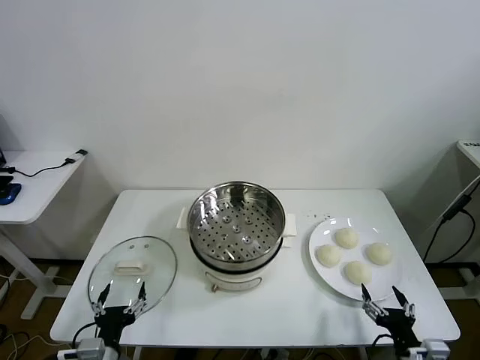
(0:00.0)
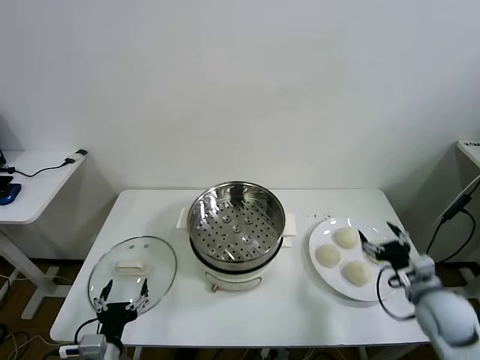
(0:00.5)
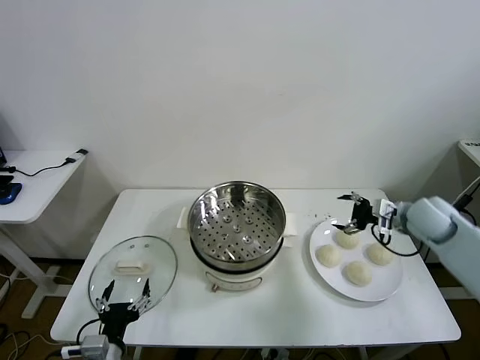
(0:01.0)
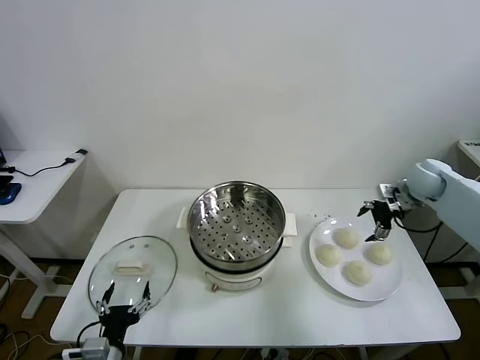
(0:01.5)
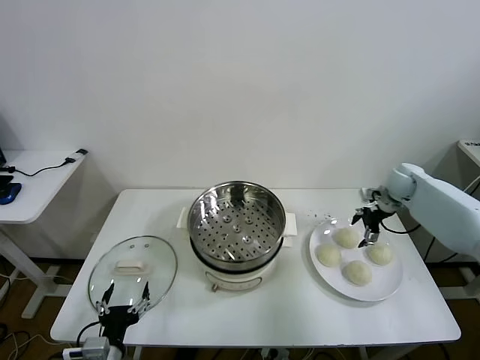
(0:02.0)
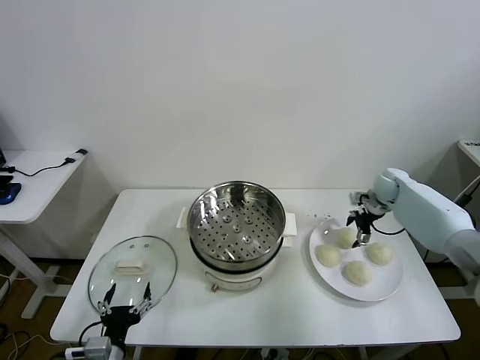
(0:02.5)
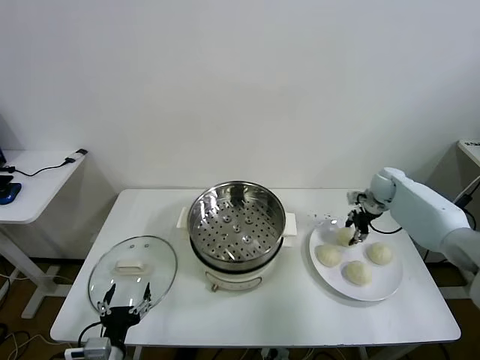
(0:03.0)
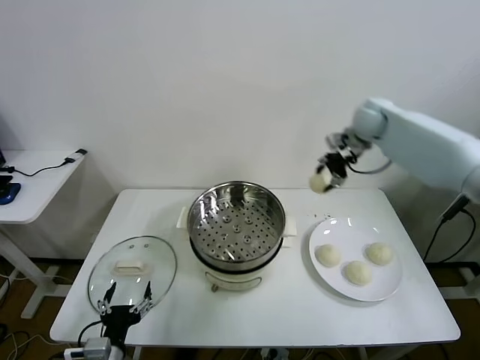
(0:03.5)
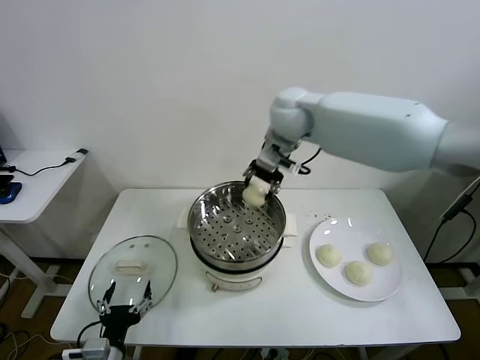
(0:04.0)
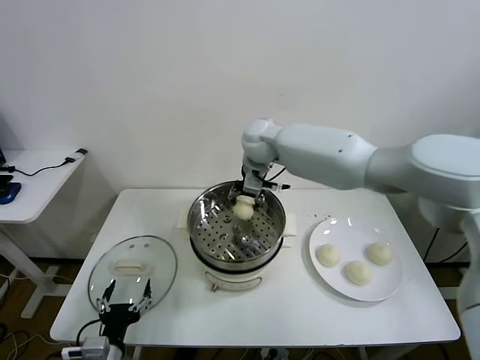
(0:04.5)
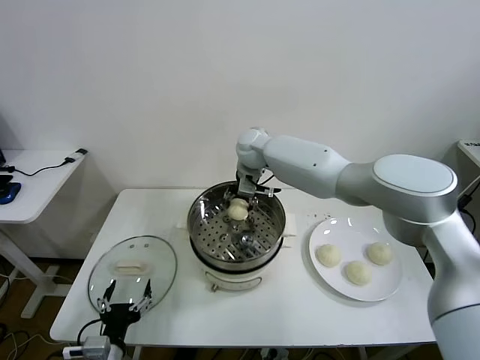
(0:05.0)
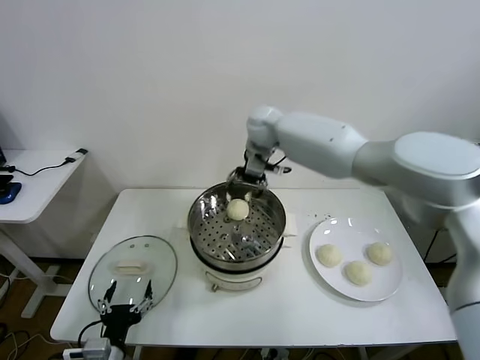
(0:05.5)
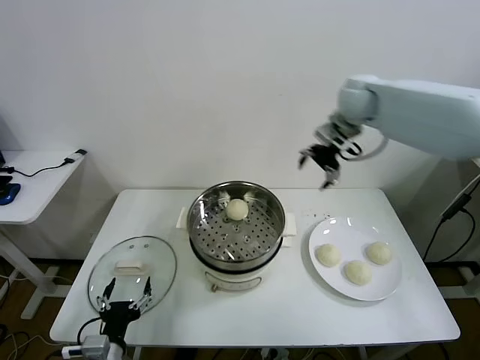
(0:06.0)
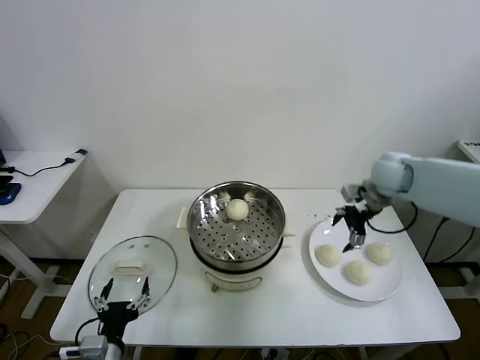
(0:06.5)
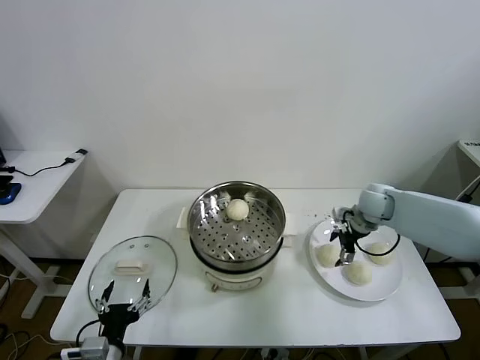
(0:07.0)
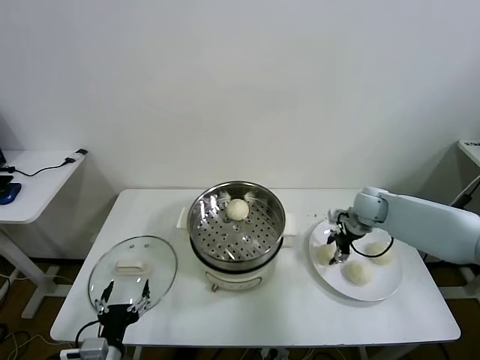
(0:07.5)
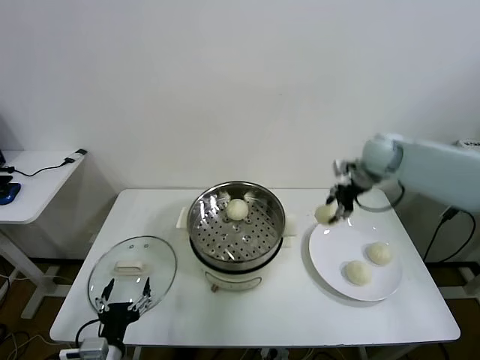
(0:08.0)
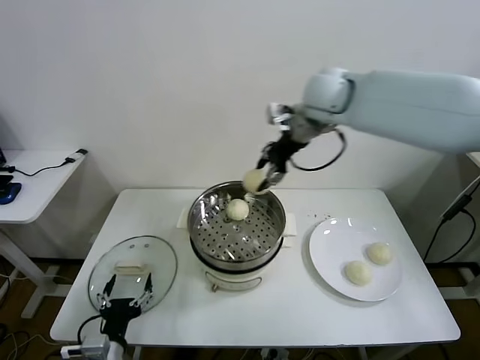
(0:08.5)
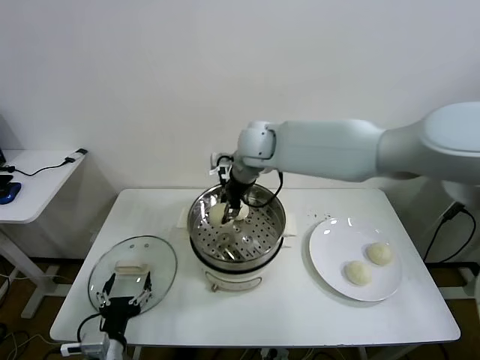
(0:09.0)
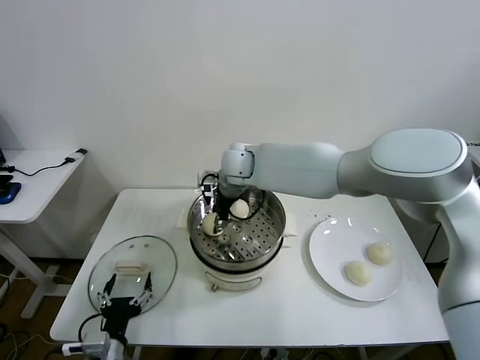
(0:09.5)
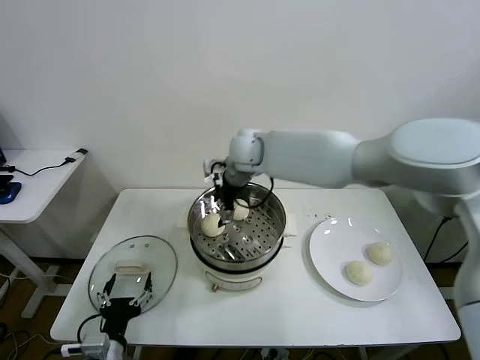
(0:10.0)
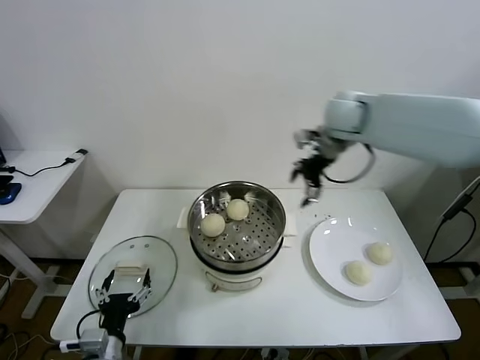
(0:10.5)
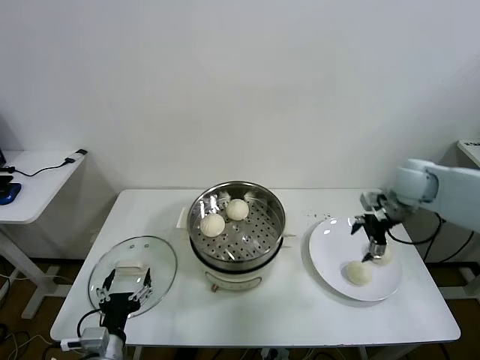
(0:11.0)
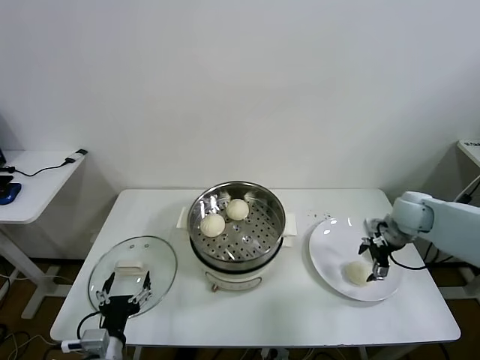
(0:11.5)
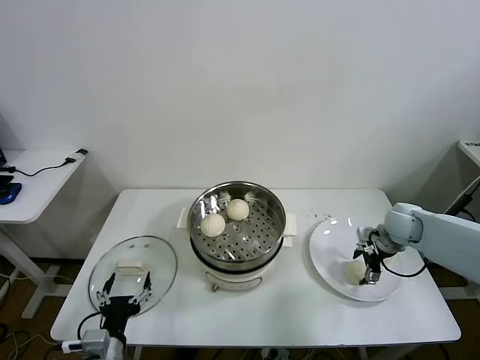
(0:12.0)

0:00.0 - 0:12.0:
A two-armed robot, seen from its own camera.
Task of the whole recording: take steamed baozi put them in steamer then cover it.
Step, 0:00.0 - 0:02.5: Grasp the baozi in the plate with right gripper.
Step, 0:03.0 - 0:05.0: Place the baozi on the steamer with right gripper.
Step, 0:05.5 - 0:07.0: Grasp the baozi in the plate with right gripper.
Step, 0:07.5 - 0:09.5: Place the baozi on the steamer with right gripper.
0:02.0 - 0:04.0: The right gripper goes roughly 40 cm to the left and upward, and closes up.
0:04.0 - 0:06.0: The right gripper is displaced to the right by approximately 20 cm, and opens its fingers.
0:06.0 - 0:08.0: The right gripper travels downward and back again, about 25 cm each way, and closes its fingers.
0:08.0 - 0:10.0: The right gripper is displaced to the left by about 30 cm, and opens.
0:10.0 - 0:12.0: The right gripper moves to the right and downward, some 40 cm, and closes up.

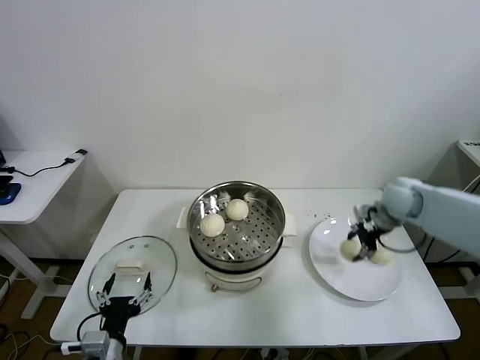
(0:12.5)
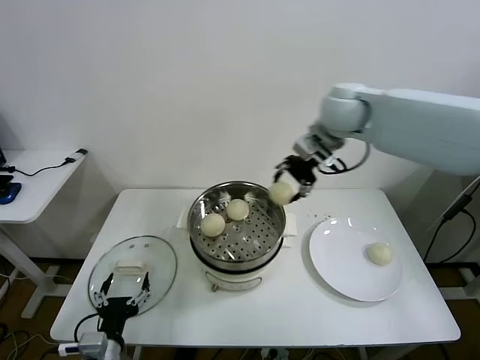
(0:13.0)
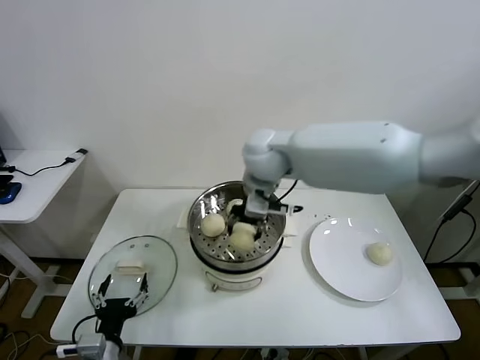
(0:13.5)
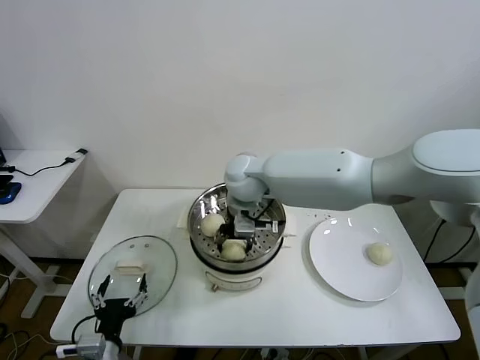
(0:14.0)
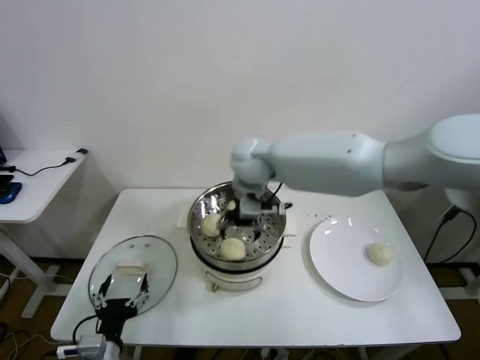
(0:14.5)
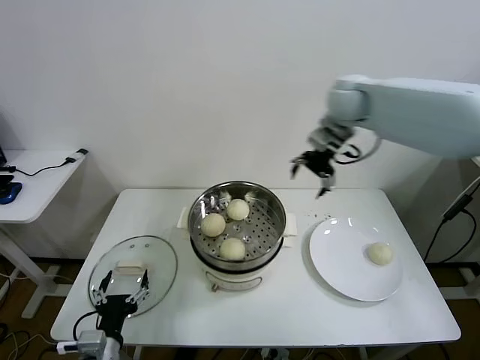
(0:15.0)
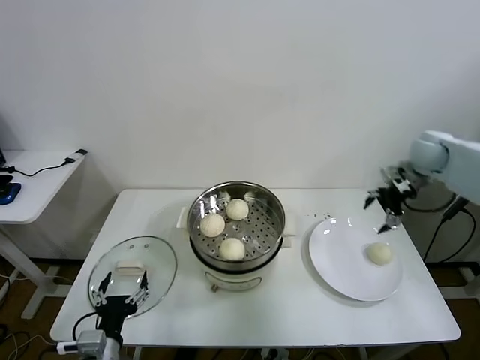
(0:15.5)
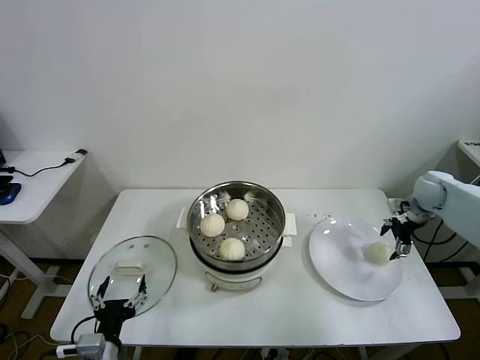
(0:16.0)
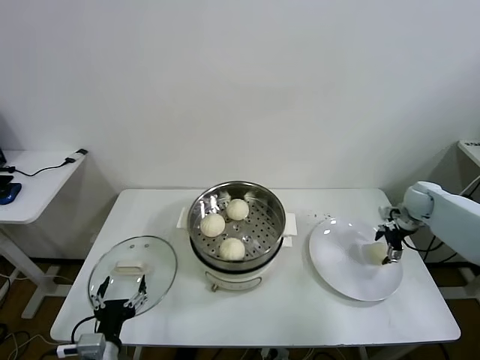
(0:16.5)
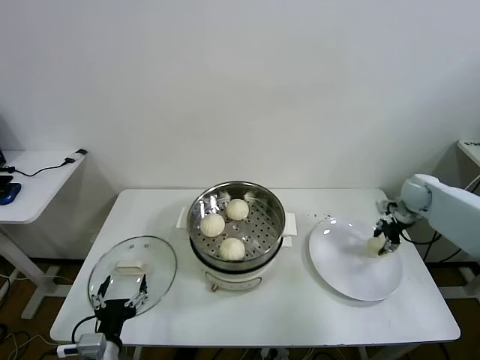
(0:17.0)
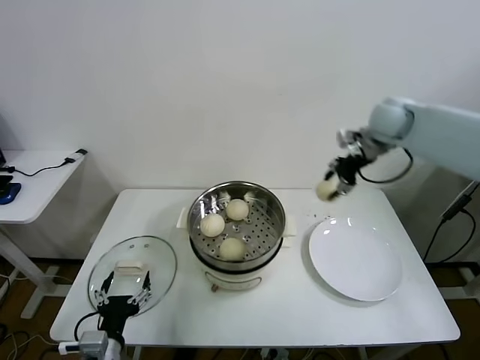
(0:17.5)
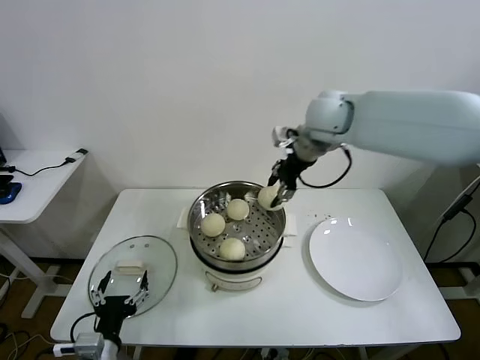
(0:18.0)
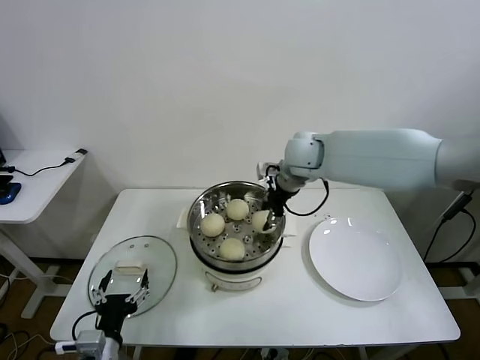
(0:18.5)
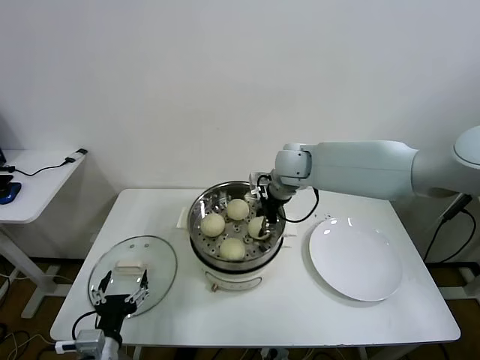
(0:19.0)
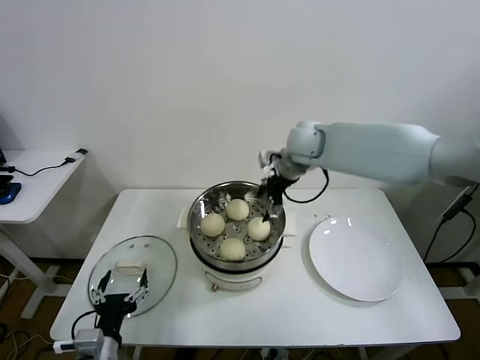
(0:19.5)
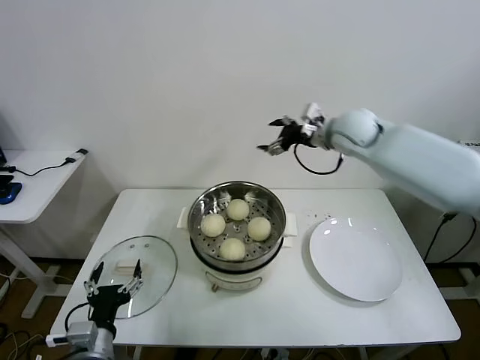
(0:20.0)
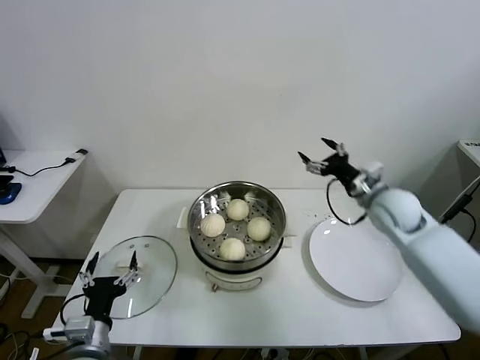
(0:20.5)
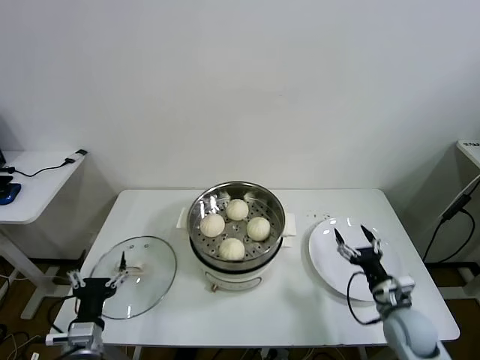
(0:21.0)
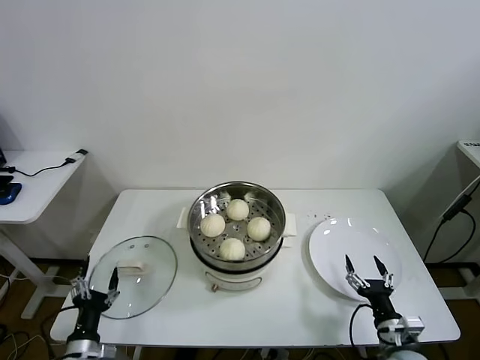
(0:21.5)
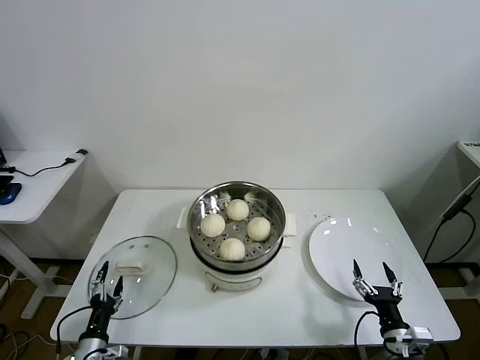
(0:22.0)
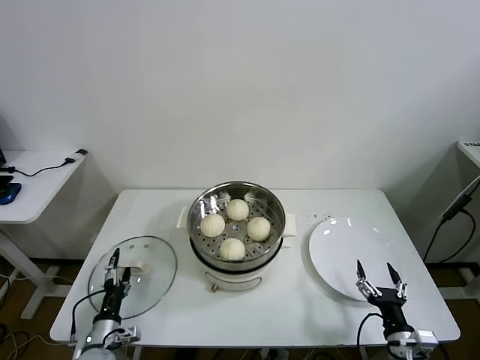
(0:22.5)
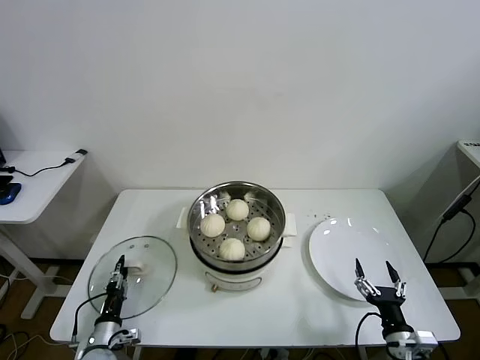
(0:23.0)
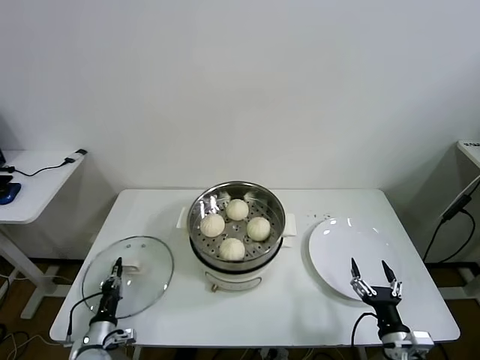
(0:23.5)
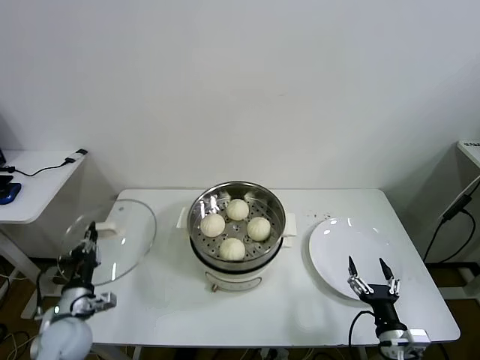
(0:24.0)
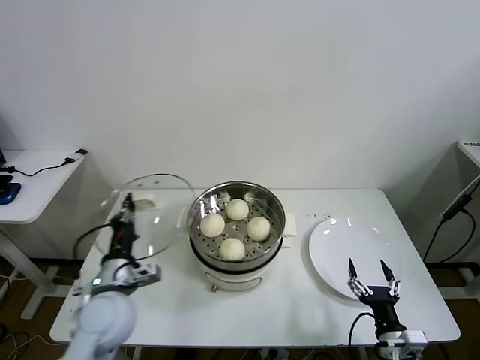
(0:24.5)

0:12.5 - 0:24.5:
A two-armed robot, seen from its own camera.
Task of the whole recording: take steamed baozi put them in steamer then cover it.
Step, 0:12.5 - 0:14.0: Place the baozi on the steamer with right gripper.
Step, 0:14.5 - 0:16.5: Grasp the baozi in the plate with right gripper.
Step, 0:17.0 - 0:19.0: Place the baozi on the steamer with right gripper.
Step, 0:19.5 - 0:23.0: Grasp the pot lid with left gripper.
0:12.5 - 0:14.5: The right gripper heads to the left, covering about 35 cm, and opens.
0:14.5 - 0:16.5: The right gripper travels to the right by some 50 cm.
0:16.5 - 0:18.5: The right gripper goes roughly 40 cm to the left and upward, and closes up.
0:18.5 - 0:20.5: The right gripper goes roughly 25 cm to the right, downward and backward, and opens up.
0:20.5 - 0:22.5: The right gripper heads backward and downward, covering some 35 cm. The left gripper heads downward, covering roughly 15 cm.
0:22.5 - 0:24.5: The left gripper shifts approximately 20 cm upward, and closes up.

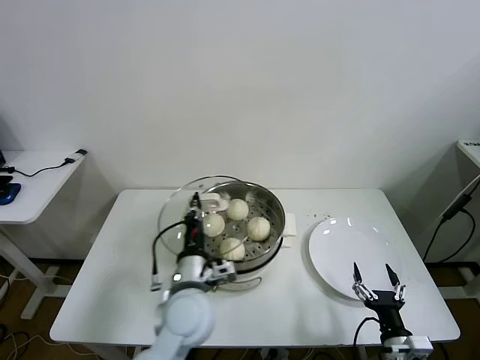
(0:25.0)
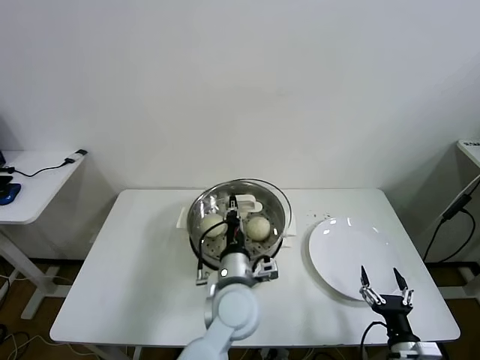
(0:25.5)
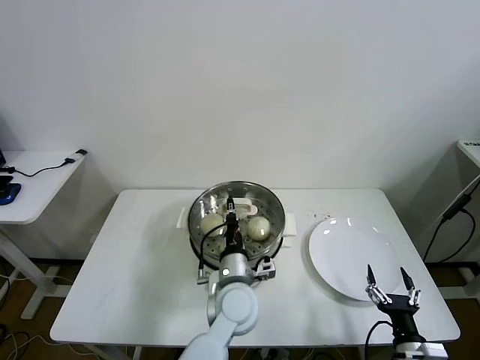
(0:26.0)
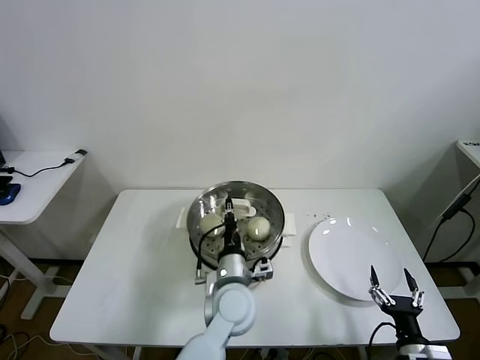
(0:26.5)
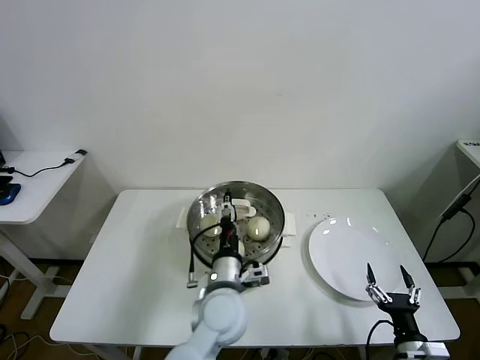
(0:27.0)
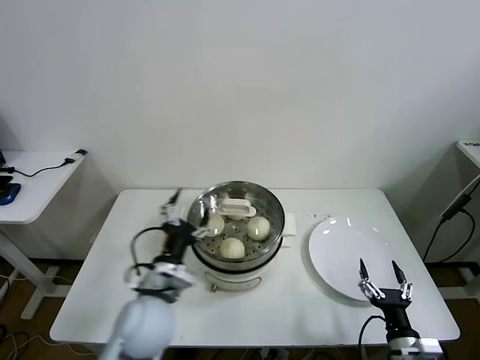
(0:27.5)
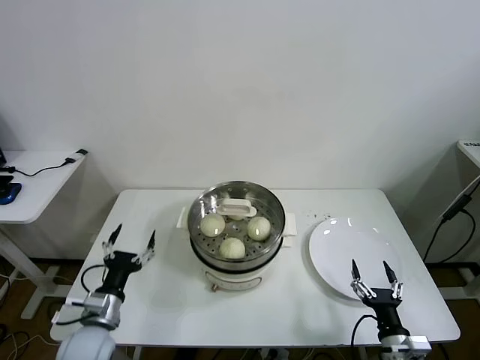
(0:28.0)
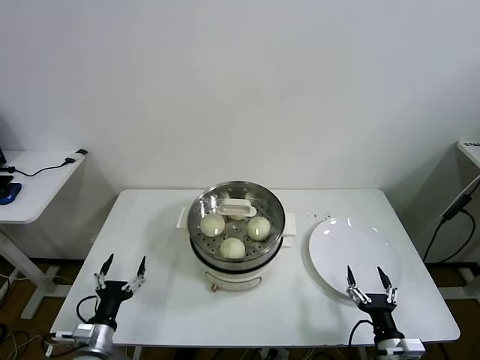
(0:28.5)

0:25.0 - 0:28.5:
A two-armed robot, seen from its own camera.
Task of the whole recording: take steamed baozi put them in steamer then cover it.
0:25.0 - 0:27.0: The left gripper goes roughly 10 cm to the right, and opens its fingers.
0:27.0 - 0:28.5: The left gripper travels to the left and downward by roughly 35 cm, and opens its fingers.
